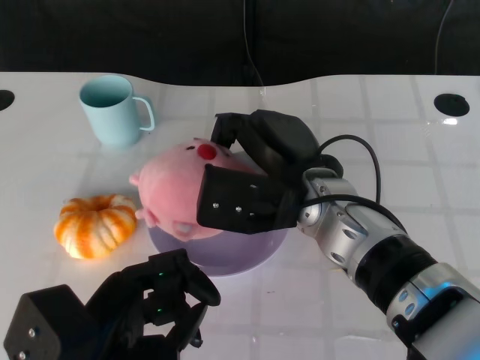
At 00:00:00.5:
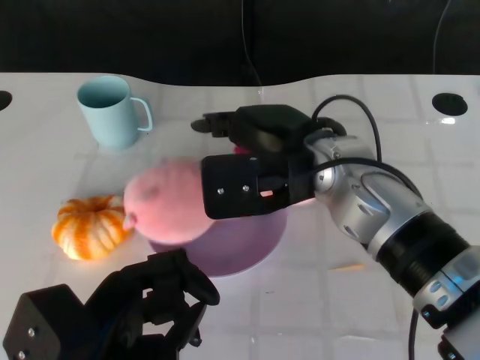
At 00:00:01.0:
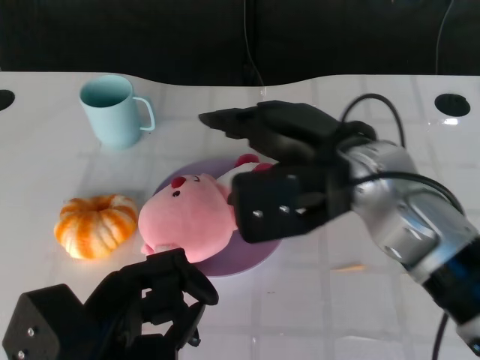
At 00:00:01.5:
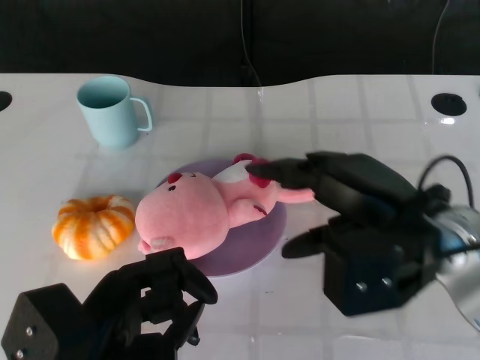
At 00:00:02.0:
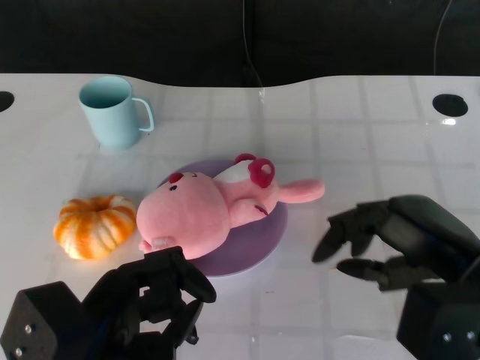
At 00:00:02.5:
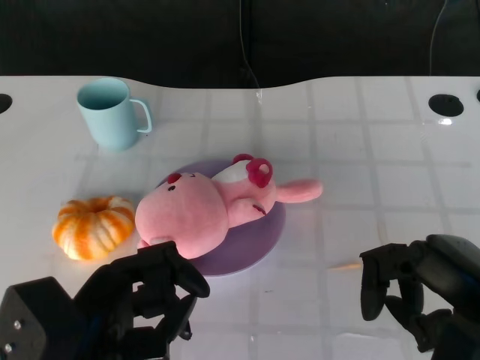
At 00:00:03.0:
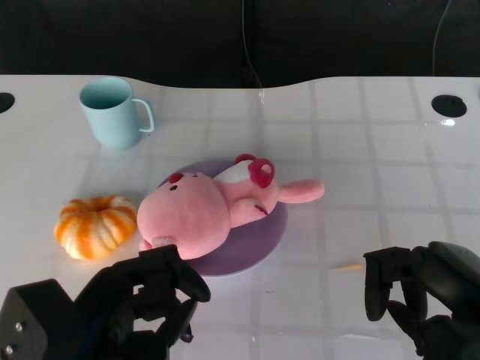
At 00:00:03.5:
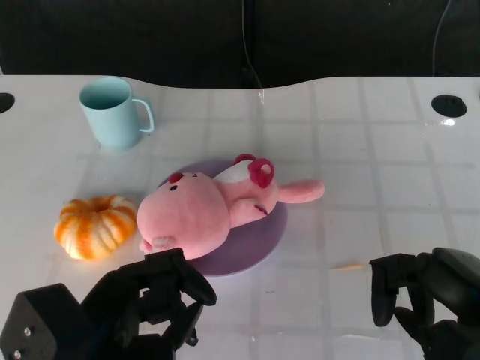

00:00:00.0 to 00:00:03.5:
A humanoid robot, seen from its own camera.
Task of the whole recording: Pick up the doll on the other side of the plate and place it into the plate.
00:00:00.0 to 00:00:02.0: The right hand goes approximately 20 cm to the right and backward.
00:00:02.0 to 00:00:03.5: The right hand moves about 5 cm.
